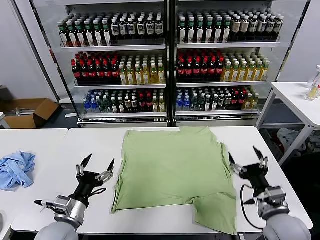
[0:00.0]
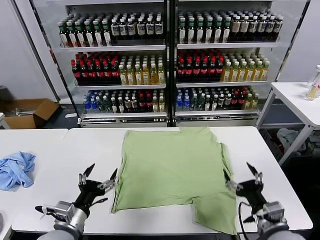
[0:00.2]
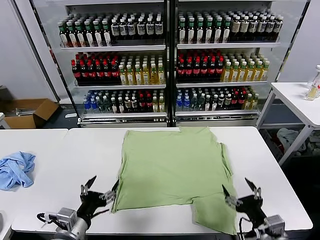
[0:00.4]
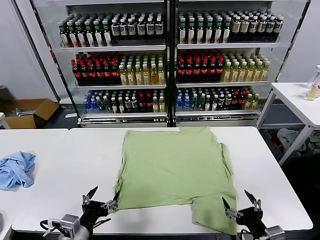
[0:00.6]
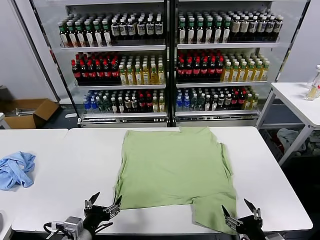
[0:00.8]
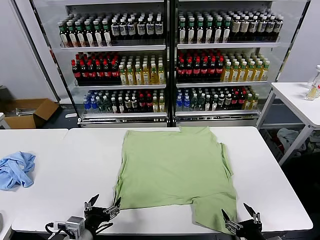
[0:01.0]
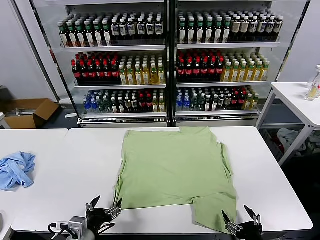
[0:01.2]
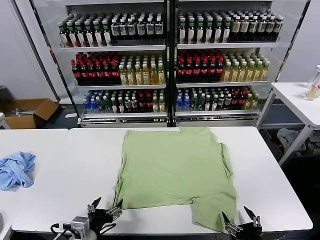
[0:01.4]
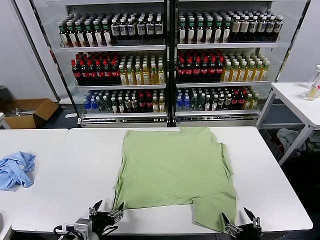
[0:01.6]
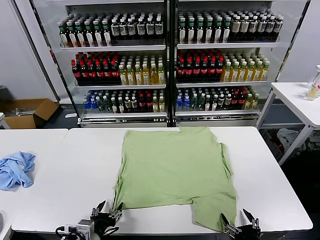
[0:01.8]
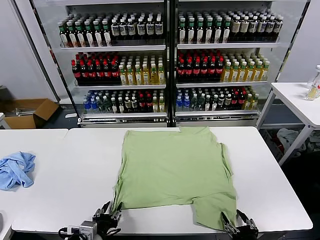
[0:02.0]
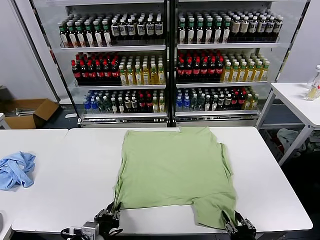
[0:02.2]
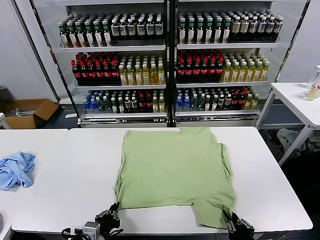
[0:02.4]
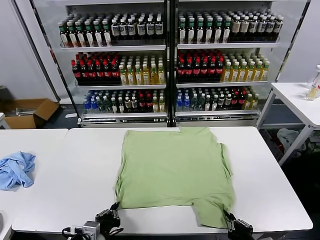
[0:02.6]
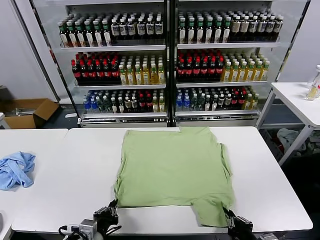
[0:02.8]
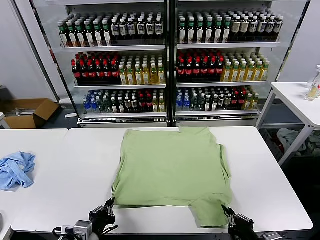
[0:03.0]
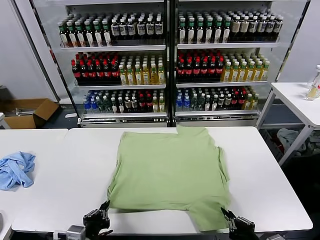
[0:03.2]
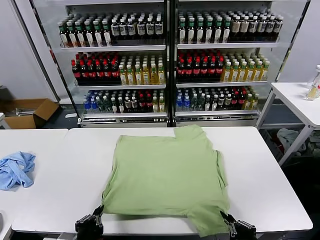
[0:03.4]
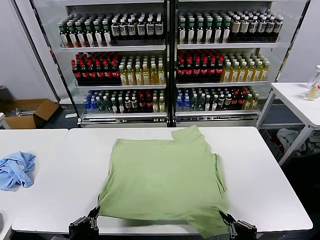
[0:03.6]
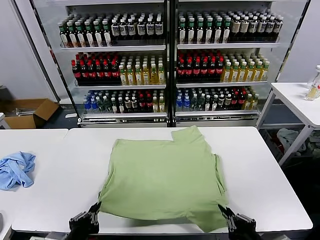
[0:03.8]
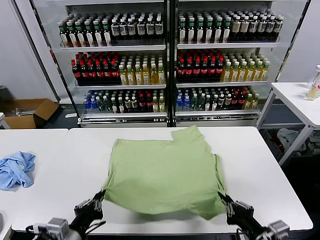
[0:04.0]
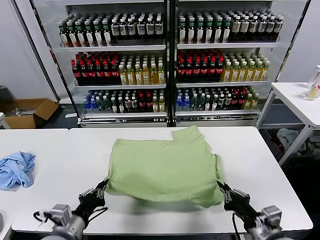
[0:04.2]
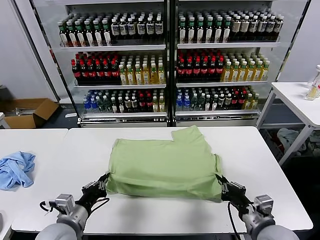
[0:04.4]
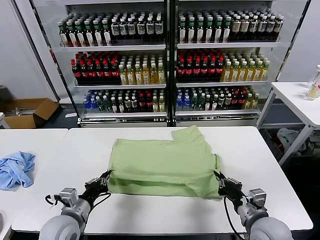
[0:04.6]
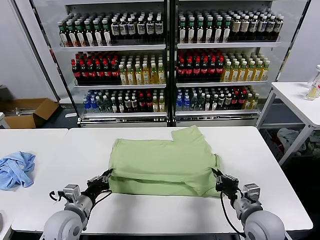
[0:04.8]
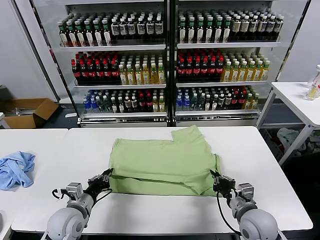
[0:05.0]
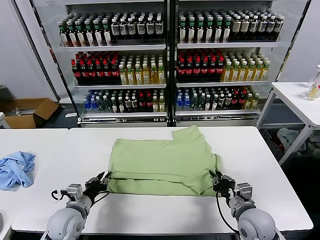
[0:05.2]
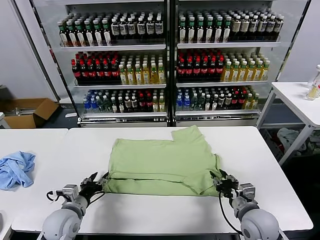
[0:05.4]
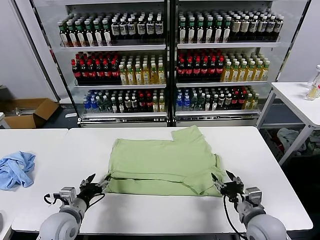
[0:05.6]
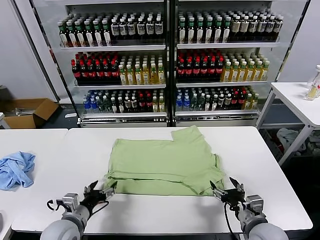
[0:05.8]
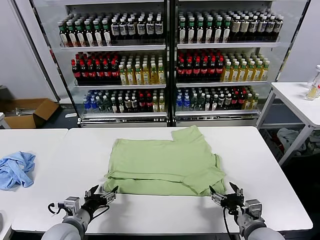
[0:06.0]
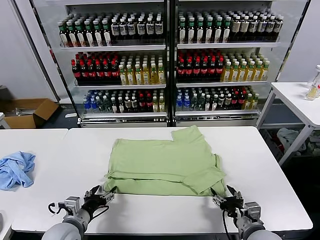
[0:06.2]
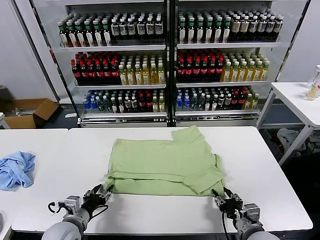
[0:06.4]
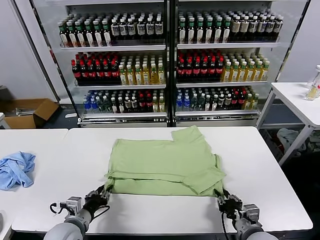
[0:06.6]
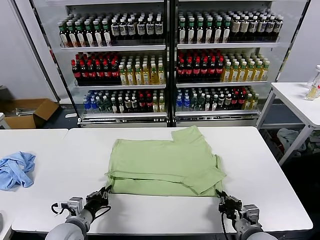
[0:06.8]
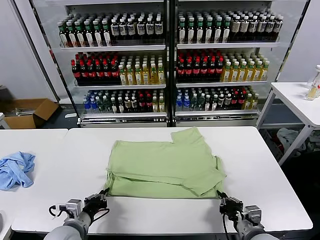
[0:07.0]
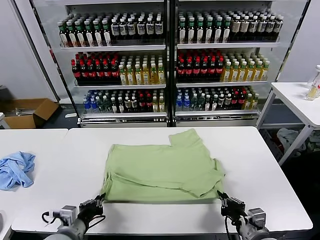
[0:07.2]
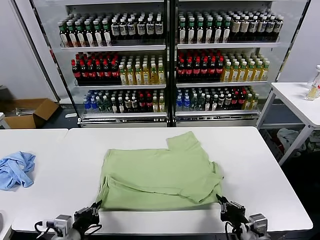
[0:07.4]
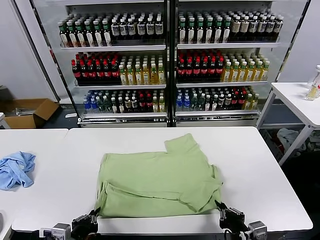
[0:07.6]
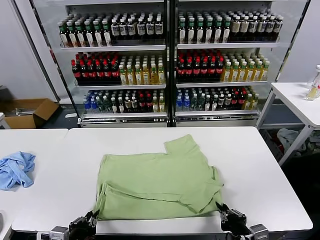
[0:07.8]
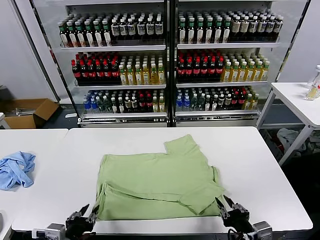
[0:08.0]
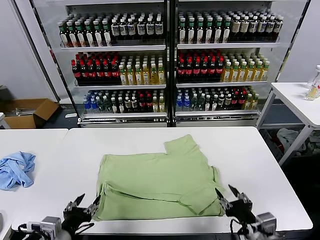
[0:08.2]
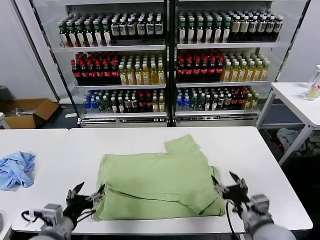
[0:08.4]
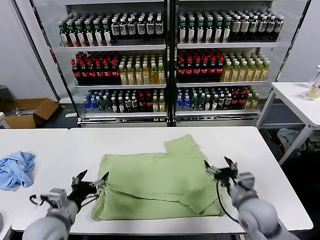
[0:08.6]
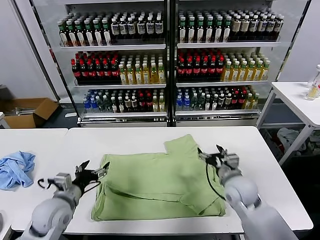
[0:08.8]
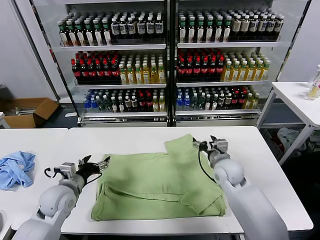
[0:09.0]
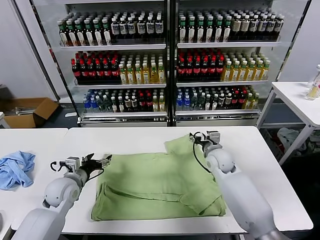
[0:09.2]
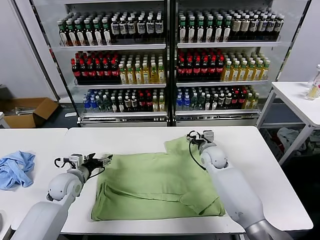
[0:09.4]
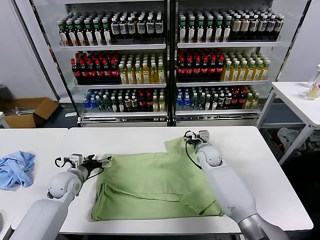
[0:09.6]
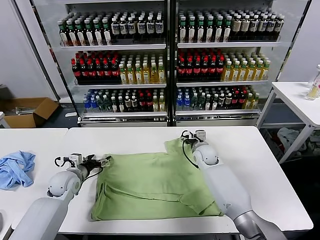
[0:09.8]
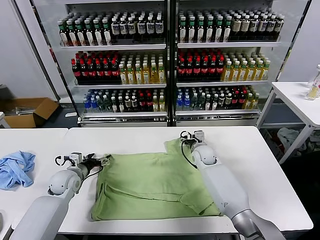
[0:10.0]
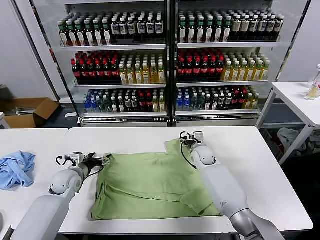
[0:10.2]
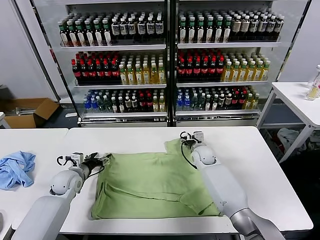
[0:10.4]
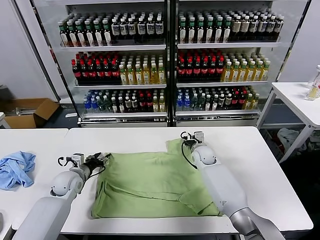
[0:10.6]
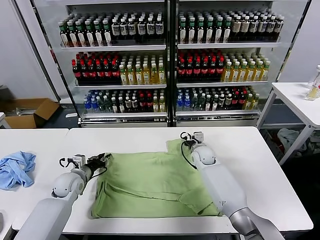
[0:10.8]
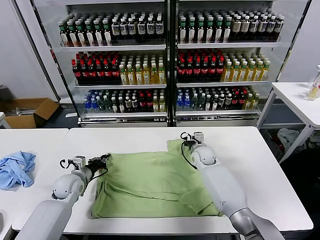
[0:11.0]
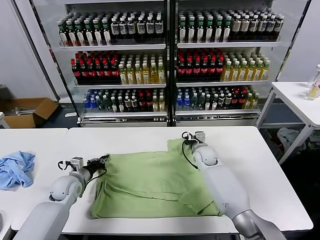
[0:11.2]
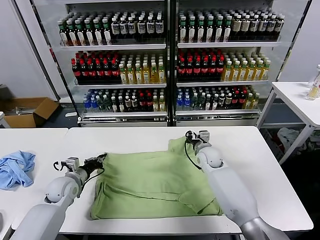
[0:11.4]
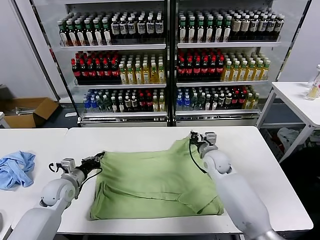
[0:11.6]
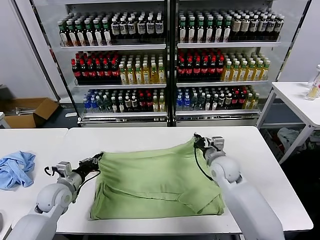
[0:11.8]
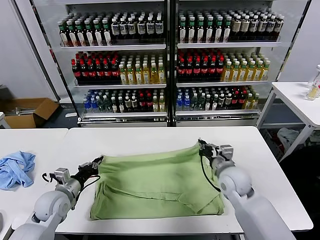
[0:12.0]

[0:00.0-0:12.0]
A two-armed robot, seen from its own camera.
Task of the whole recording: fold and organize the clothes.
Step, 0:00.0 to 0:02.8: use both grippers simultaneously to clamp the lower edge of the clothing fabric.
Step, 0:03.0 to 0:05.4: use both grippers to drag the lower edge of the fabric forward and fold it over the upper edge.
Step, 0:05.8 to 0:08.0: Drag the clothes downward with both gripper.
Step, 0:08.2 to 0:11.0: use both grippers simultaneously to clamp the upper edge of the clothing fabric.
0:01.6 to 0:03.0: The right gripper closes up; the left gripper closes.
0:03.0 to 0:04.4: The left gripper travels forward by approximately 5 cm; the right gripper heads forward, covering some 10 cm.
0:04.4 to 0:06.0: The left gripper opens up. Meanwhile the right gripper opens its fingers.
0:06.0 to 0:07.6: Both grippers move backward, approximately 10 cm. The right gripper closes up. Meanwhile the left gripper closes up.
0:07.6 to 0:09.0: The left gripper is displaced forward by approximately 20 cm, and opens, while the right gripper moves forward, approximately 30 cm, and opens.
0:09.0 to 0:10.4: The grippers both shift forward and downward by about 10 cm.
0:10.4 to 0:12.0: The right gripper travels backward and upward by about 20 cm, and closes; the left gripper shifts about 10 cm backward, and closes.

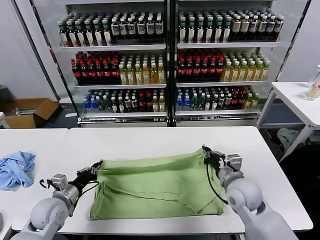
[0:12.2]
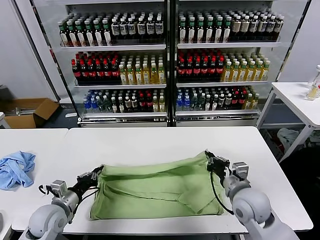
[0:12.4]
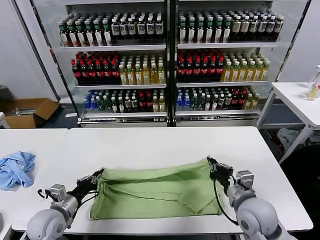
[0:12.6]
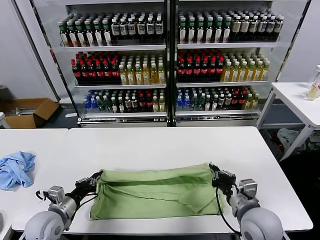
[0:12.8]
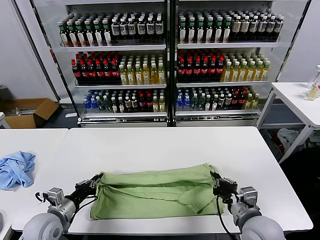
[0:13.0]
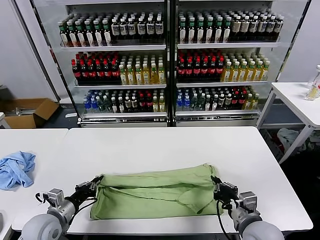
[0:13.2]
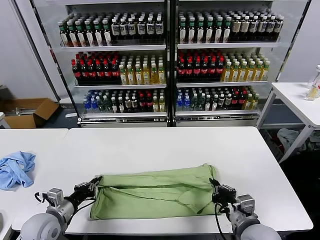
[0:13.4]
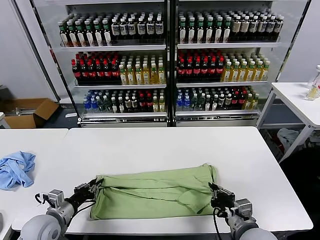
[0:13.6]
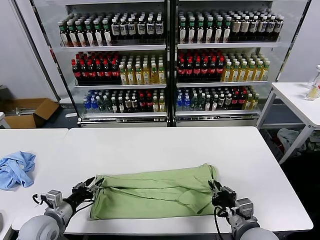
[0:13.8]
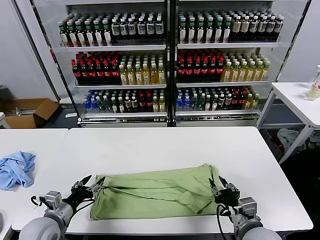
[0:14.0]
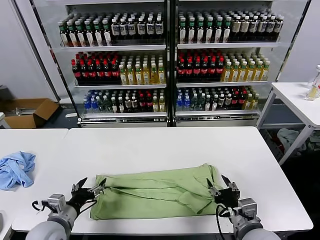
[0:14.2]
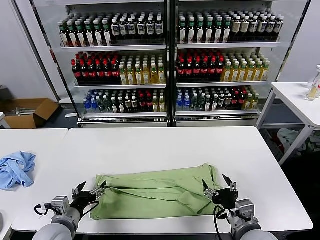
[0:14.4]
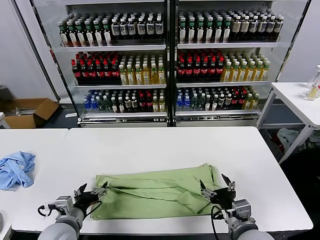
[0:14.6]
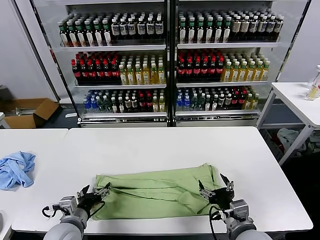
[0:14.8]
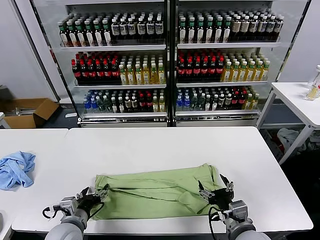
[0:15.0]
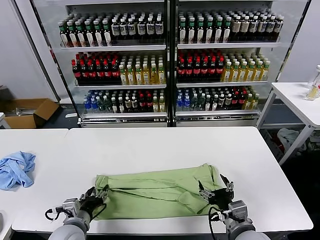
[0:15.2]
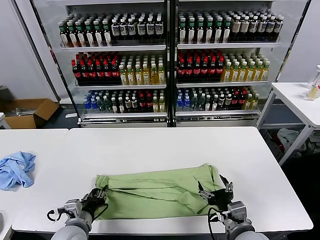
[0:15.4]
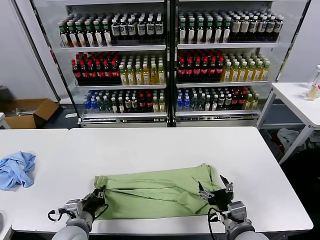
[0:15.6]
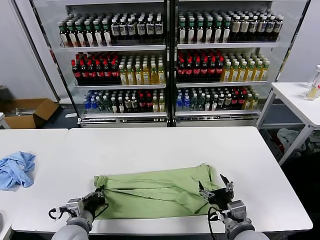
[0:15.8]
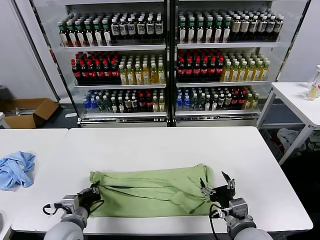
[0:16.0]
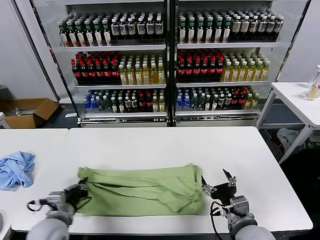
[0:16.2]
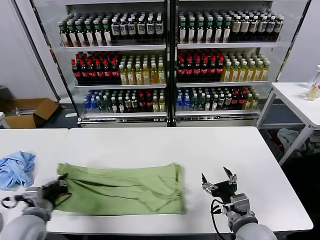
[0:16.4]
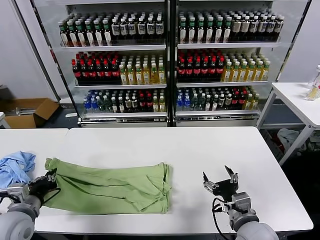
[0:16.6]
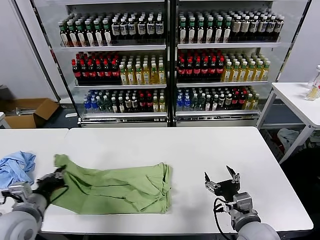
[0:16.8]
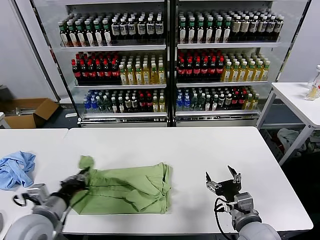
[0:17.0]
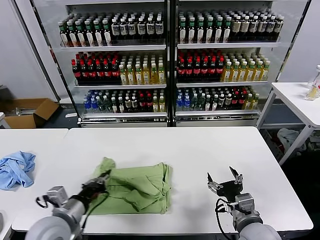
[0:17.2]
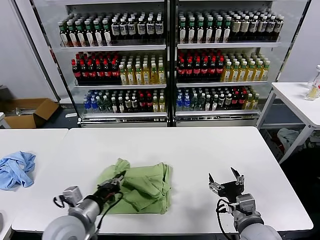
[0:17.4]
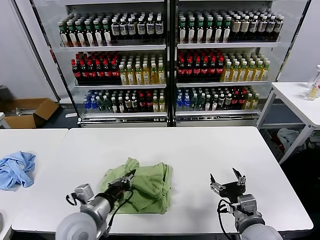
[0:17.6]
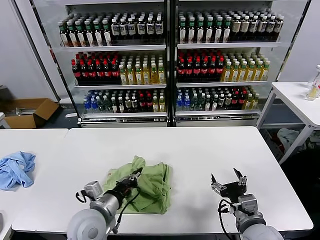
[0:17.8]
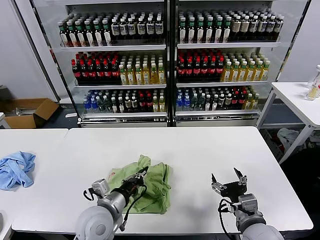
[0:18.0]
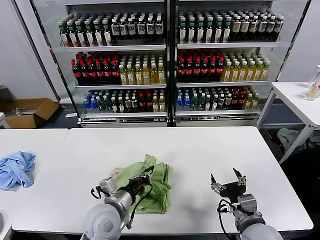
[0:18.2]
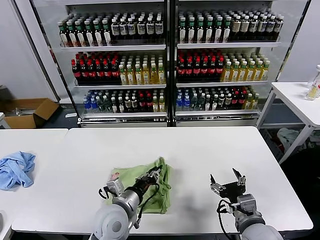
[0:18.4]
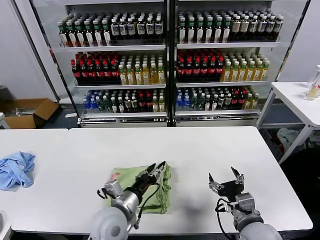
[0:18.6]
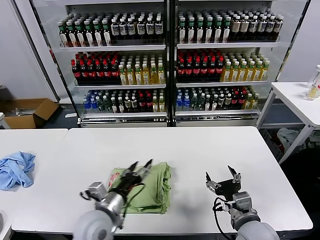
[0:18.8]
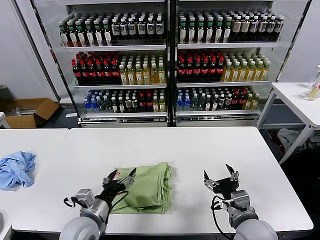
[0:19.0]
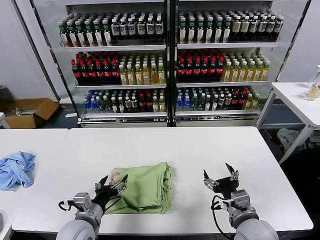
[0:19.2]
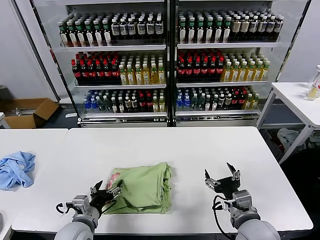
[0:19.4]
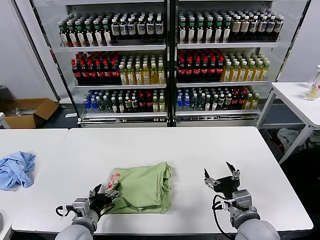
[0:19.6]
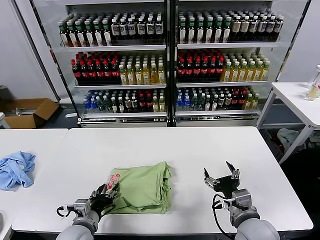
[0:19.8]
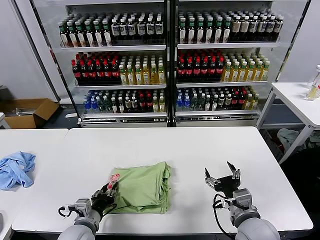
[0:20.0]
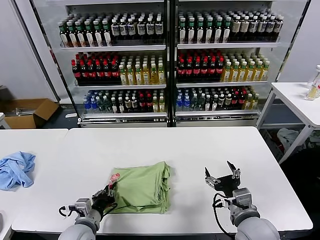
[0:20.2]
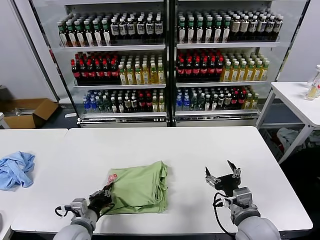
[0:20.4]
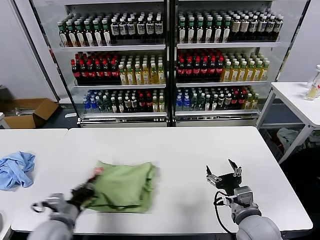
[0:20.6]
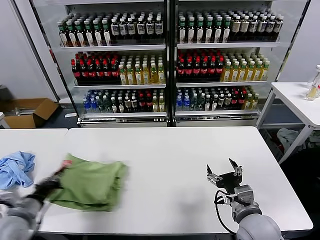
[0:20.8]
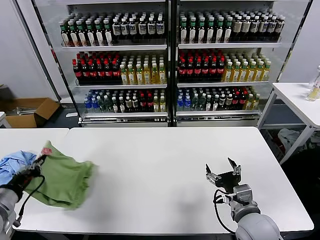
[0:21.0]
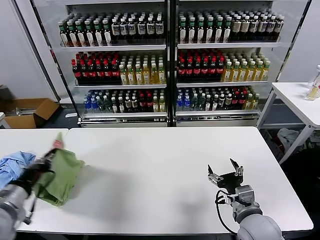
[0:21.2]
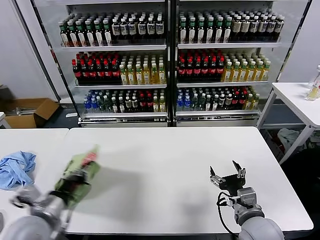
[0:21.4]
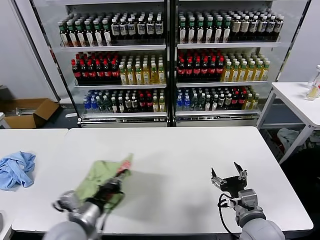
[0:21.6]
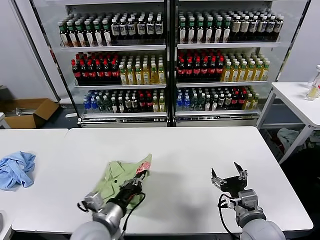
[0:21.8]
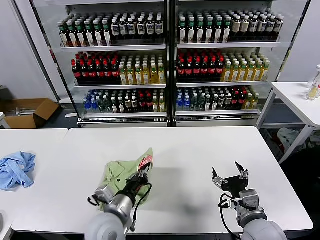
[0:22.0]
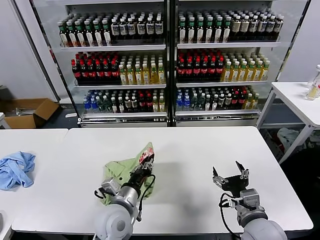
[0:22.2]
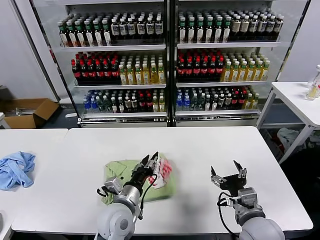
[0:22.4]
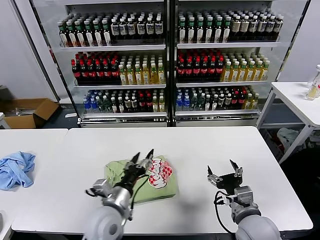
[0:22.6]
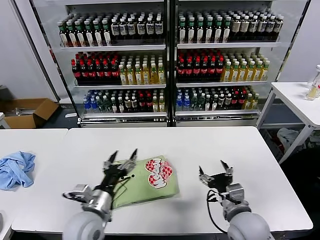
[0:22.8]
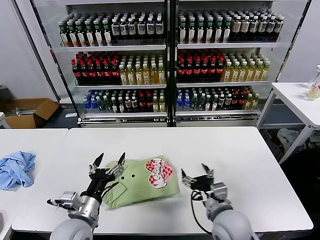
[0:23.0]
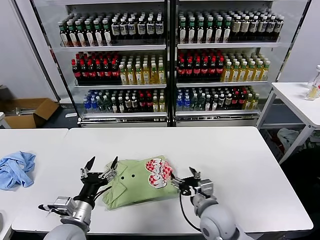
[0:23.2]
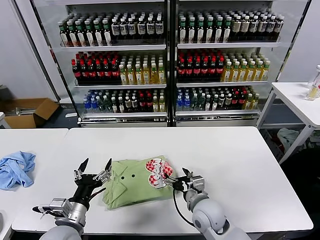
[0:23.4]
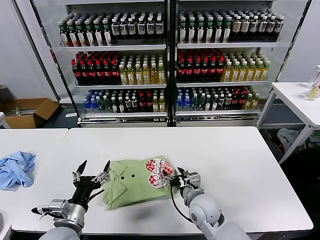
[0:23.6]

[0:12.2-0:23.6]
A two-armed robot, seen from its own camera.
Task of the whole recording: fold and organize the clothes.
Step, 0:12.2 to 0:14.0: use both grippers to drag the upper edge of the fabric backward and fold it over the lower edge.
Step, 0:14.2 to 0:15.6: use the left gripper to clamp the left edge of the fabric.
Step, 0:16.0 to 0:18.6: use the left gripper to drag the left edge of the fabric to the left and folds it over the right edge.
Step, 0:18.8 to 0:22.4: Flip the folded clothes over with left gripper.
0:12.2 to 0:13.6: The left gripper heads backward, covering roughly 5 cm. The right gripper is displaced backward by approximately 10 cm.
0:13.6 to 0:15.0: The right gripper opens its fingers, while the left gripper travels to the right by approximately 10 cm, and opens its fingers.
0:15.0 to 0:16.4: The left gripper is displaced to the left and upward by roughly 10 cm, and closes its fingers.
0:16.4 to 0:17.8: The left gripper goes approximately 15 cm to the right.
0:17.8 to 0:19.4: The left gripper travels downward by approximately 5 cm, and opens up.
0:19.4 to 0:20.8: The left gripper is displaced to the left and upward by some 15 cm, and closes.
0:20.8 to 0:22.2: The left gripper heads to the right, covering roughly 25 cm.
0:22.2 to 0:23.6: The left gripper moves to the left and backward, roughly 15 cm, and opens; the right gripper shifts about 15 cm to the left, forward and downward.
